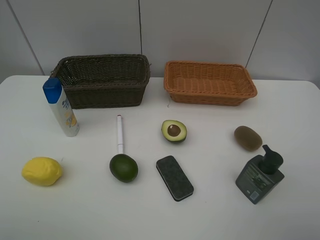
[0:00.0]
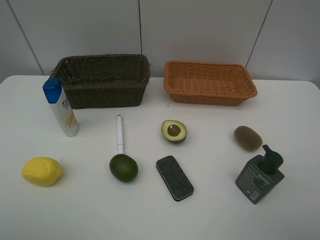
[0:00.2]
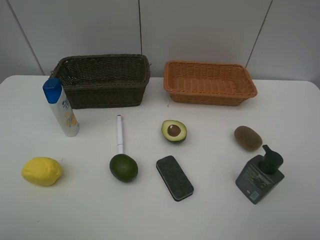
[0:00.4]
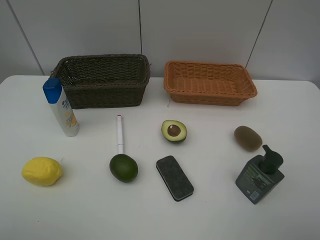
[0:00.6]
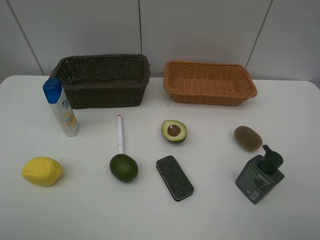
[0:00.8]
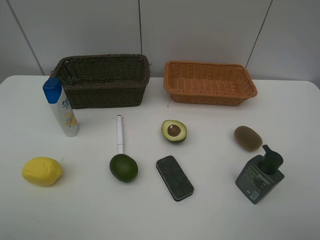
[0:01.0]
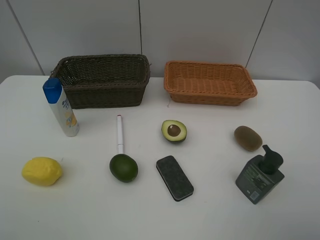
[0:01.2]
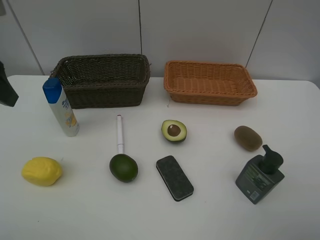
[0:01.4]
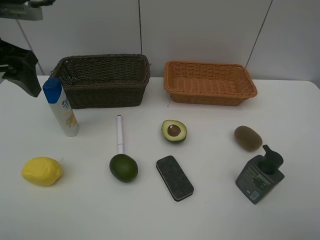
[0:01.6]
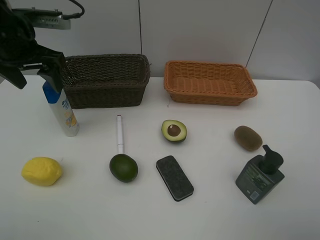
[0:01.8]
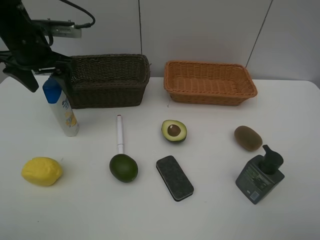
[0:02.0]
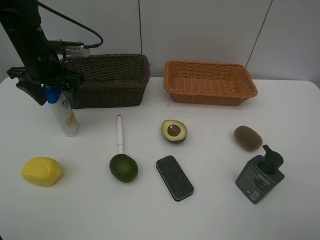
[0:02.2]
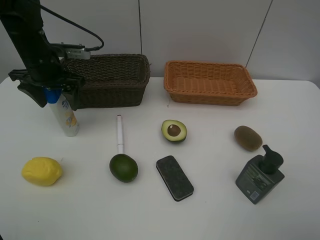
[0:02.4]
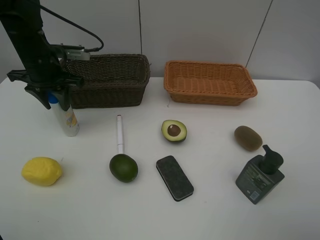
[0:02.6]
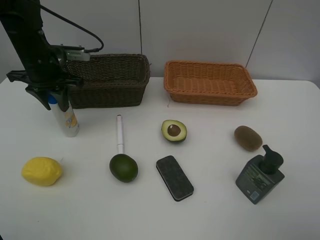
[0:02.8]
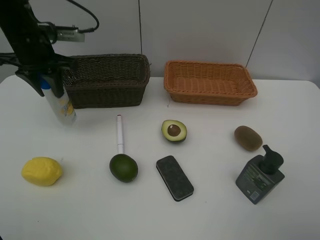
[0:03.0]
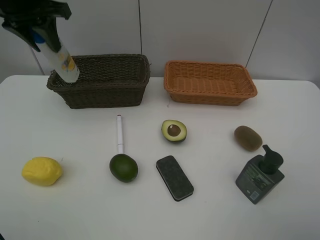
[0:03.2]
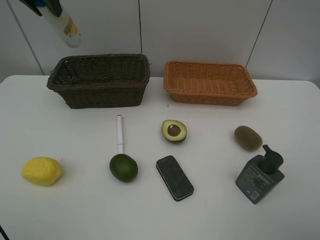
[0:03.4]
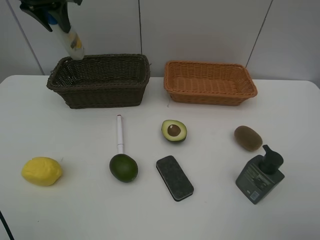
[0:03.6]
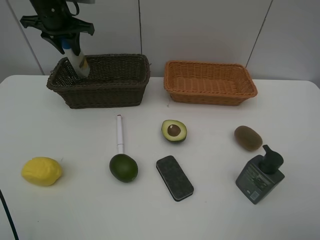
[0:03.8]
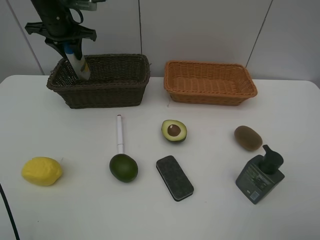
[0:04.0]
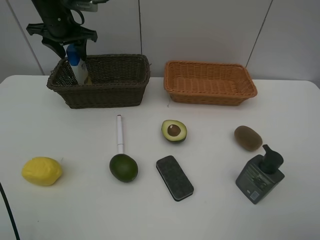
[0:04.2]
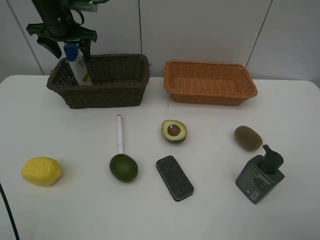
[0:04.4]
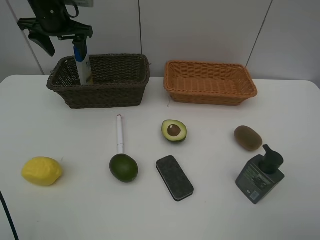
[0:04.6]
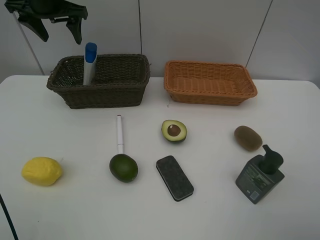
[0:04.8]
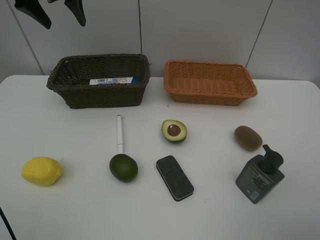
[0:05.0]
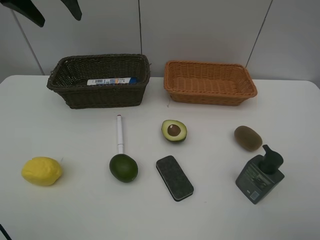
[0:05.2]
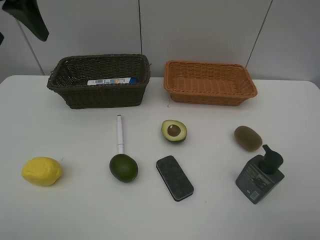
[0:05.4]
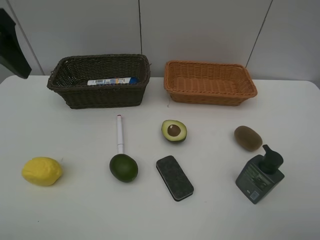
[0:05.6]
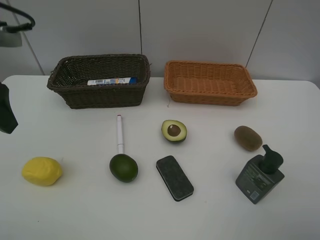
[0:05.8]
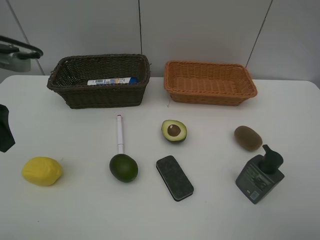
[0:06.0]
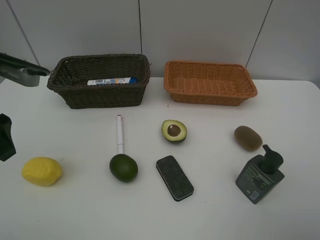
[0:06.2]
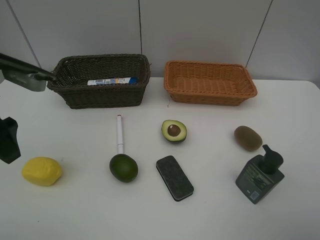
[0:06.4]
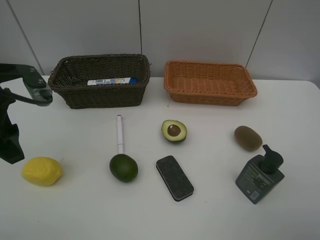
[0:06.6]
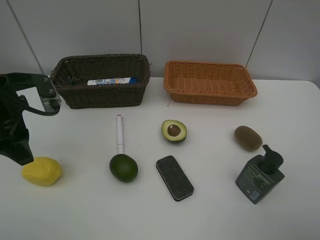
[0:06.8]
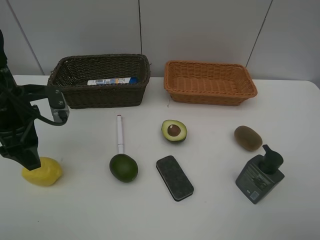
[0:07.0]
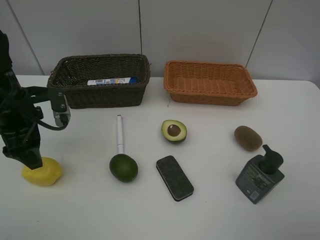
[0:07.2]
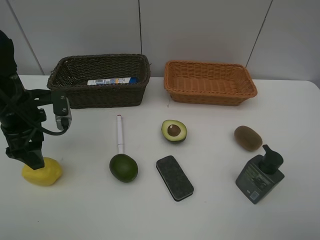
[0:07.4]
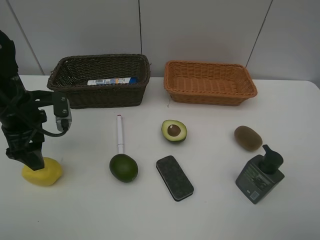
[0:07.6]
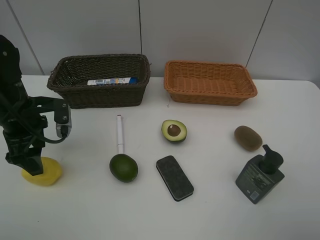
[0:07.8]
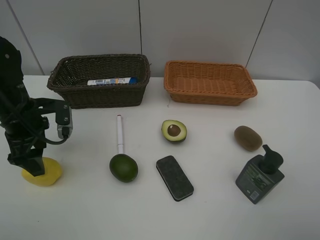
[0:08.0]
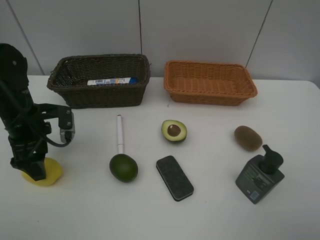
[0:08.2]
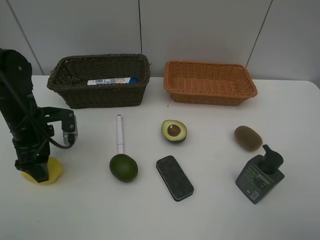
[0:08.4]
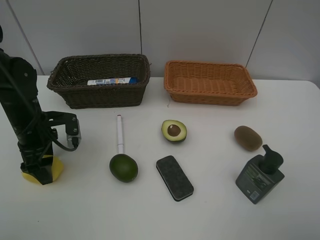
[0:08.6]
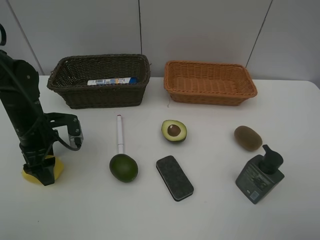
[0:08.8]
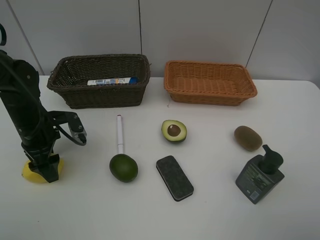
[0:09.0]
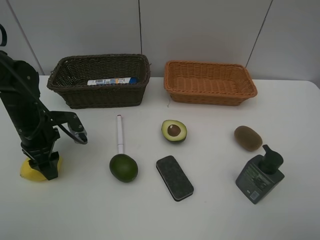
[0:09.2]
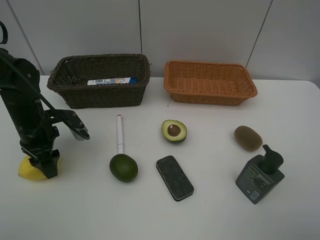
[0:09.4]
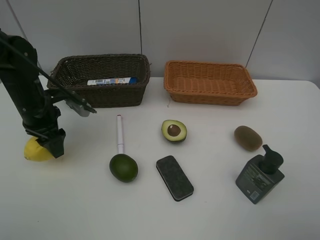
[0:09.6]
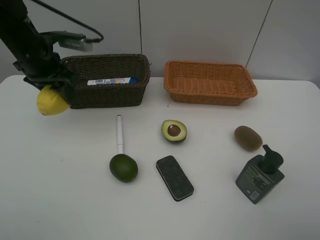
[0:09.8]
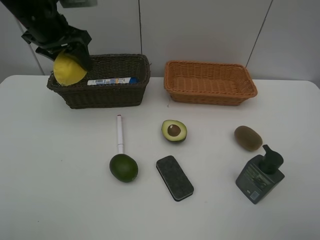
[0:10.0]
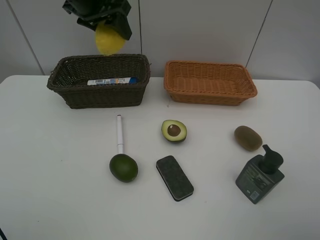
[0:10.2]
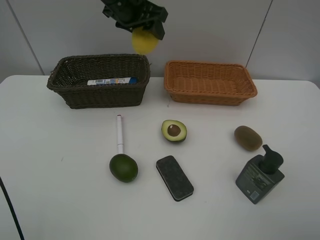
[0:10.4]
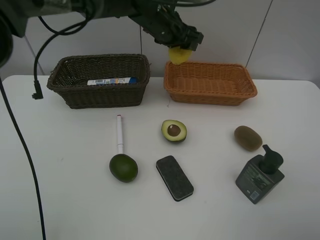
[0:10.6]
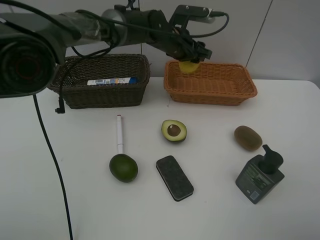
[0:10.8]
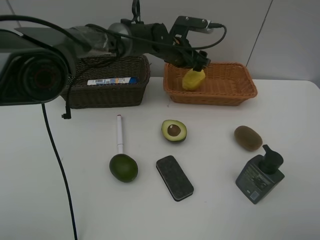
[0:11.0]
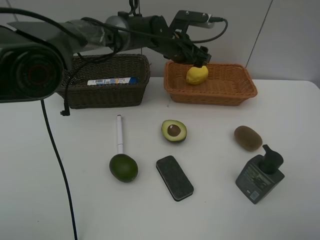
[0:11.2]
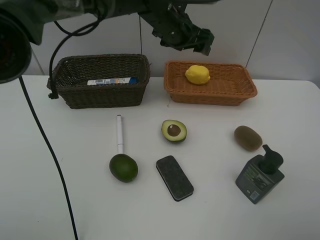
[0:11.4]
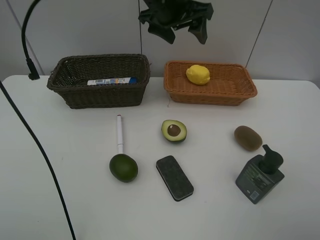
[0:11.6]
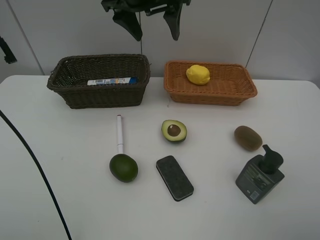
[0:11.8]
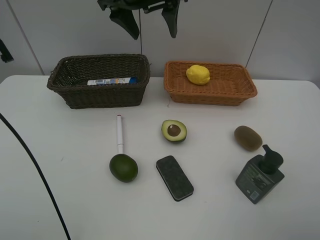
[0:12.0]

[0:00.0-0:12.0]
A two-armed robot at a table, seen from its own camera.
Task of the whole recording: Place multiple objects separately in different baskets.
Step, 0:00.0 to 0:02.8: Pick up the shampoo with left gripper.
Step, 0:03.0 to 0:04.6: Place the shampoo in the dark basket with left gripper.
Step, 0:04.8 to 0:09.6: Pick up the lemon with left gripper.
Step, 0:09.8 to 0:11.0: Place the lemon in the light basket with left gripper.
0:00.0 to 0:01.6: The left gripper moves forward, roughly 30 cm.
0:01.6 to 0:03.0: The left gripper travels forward by approximately 10 cm, goes downward and returns, about 10 cm each way, and closes its fingers.
0:03.0 to 0:04.4: The left gripper travels forward by approximately 10 cm, moves about 10 cm upward and comes back, and opens.
0:04.4 to 0:06.0: The left gripper is displaced backward by roughly 25 cm.
0:06.0 to 0:07.6: The left gripper heads downward and forward, covering some 15 cm.
0:07.6 to 0:09.0: The left gripper heads downward, covering some 5 cm.
0:09.0 to 0:10.4: The left gripper is displaced upward, to the right and forward by some 30 cm.
0:10.4 to 0:12.0: The left gripper travels backward by about 5 cm, and moves some 10 cm downward and comes back.

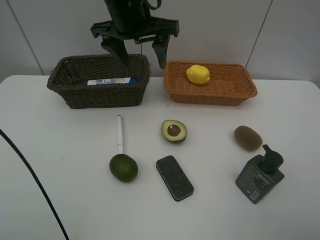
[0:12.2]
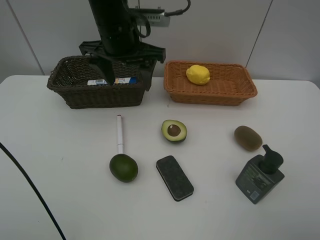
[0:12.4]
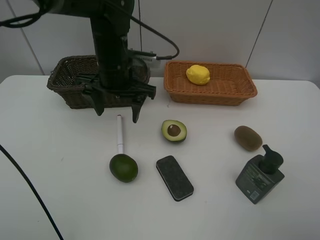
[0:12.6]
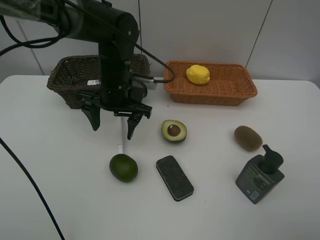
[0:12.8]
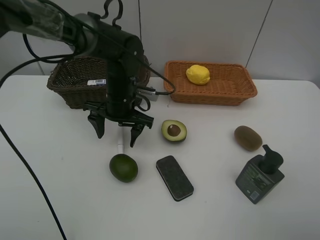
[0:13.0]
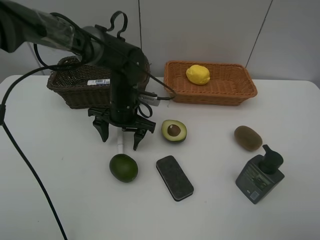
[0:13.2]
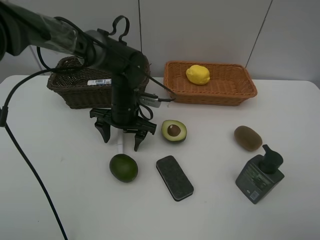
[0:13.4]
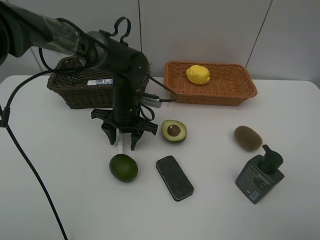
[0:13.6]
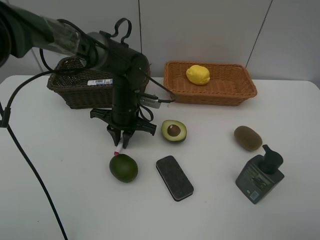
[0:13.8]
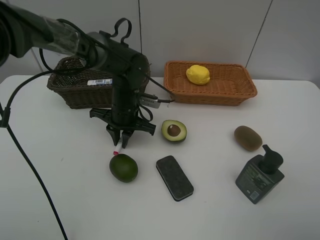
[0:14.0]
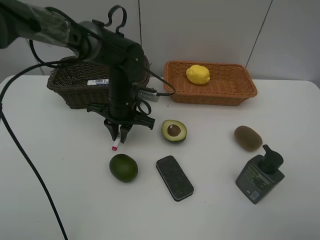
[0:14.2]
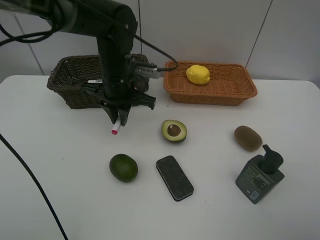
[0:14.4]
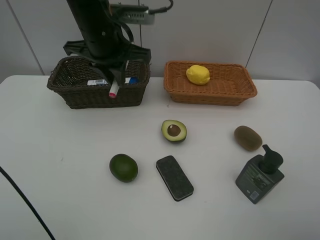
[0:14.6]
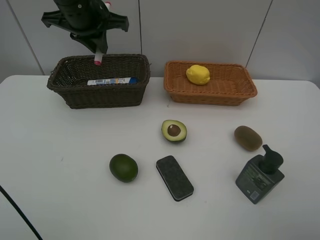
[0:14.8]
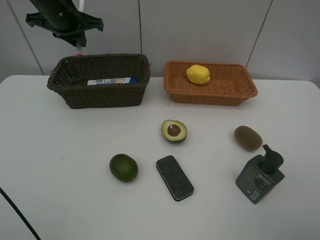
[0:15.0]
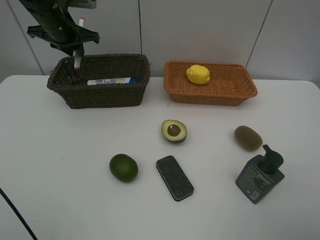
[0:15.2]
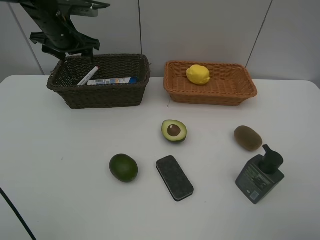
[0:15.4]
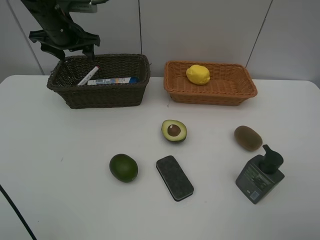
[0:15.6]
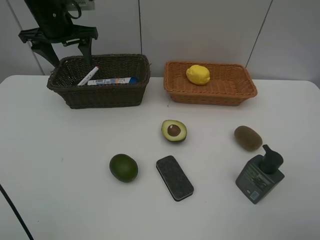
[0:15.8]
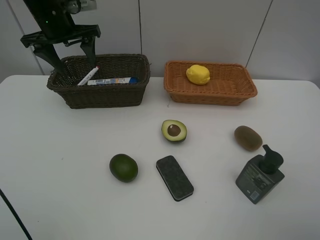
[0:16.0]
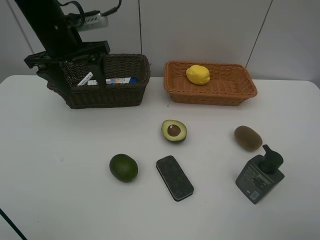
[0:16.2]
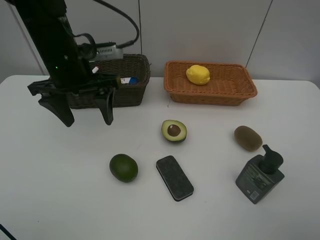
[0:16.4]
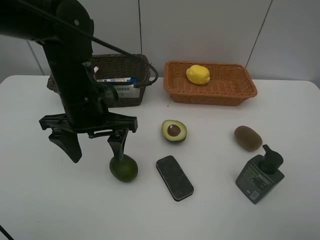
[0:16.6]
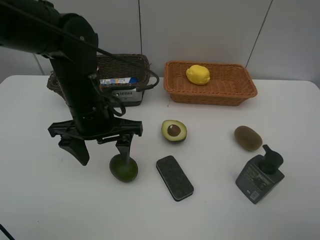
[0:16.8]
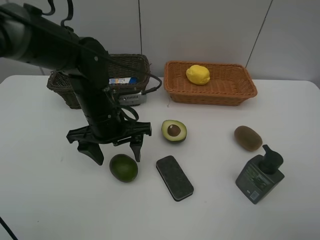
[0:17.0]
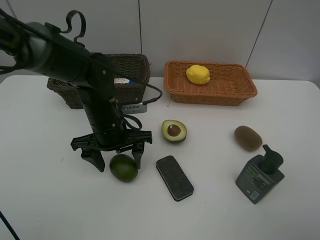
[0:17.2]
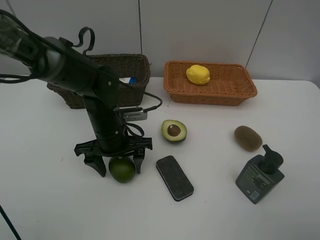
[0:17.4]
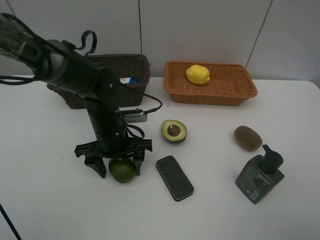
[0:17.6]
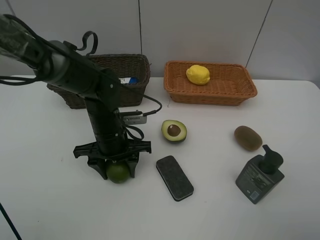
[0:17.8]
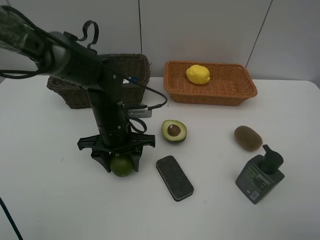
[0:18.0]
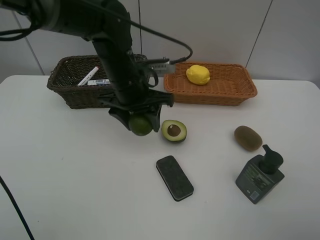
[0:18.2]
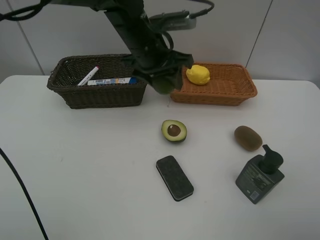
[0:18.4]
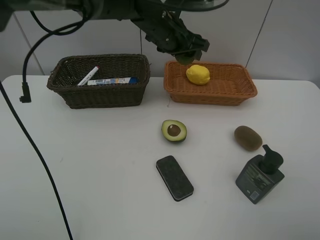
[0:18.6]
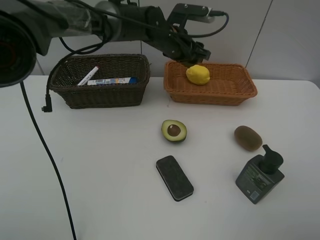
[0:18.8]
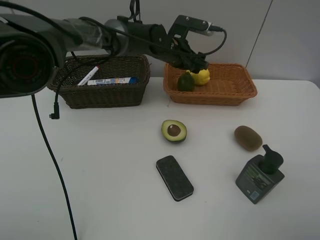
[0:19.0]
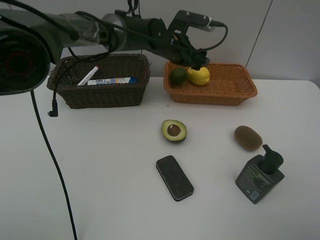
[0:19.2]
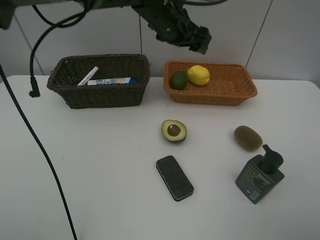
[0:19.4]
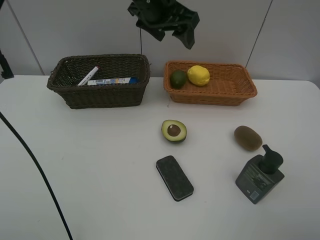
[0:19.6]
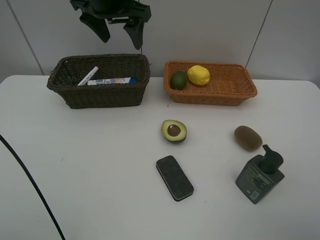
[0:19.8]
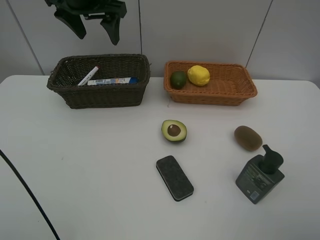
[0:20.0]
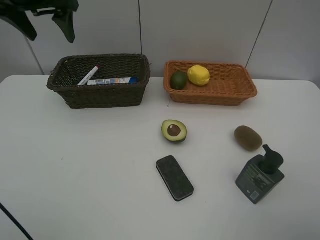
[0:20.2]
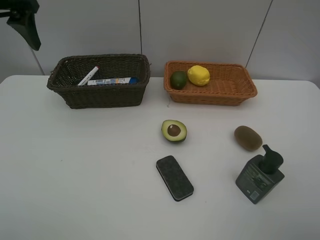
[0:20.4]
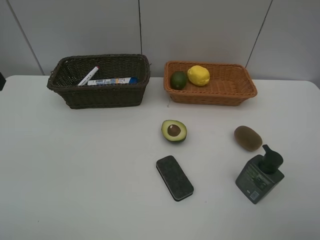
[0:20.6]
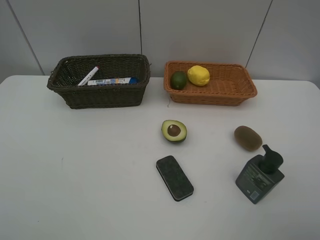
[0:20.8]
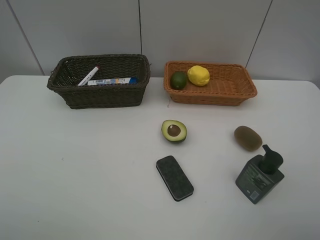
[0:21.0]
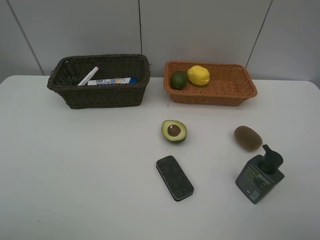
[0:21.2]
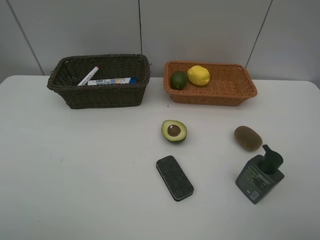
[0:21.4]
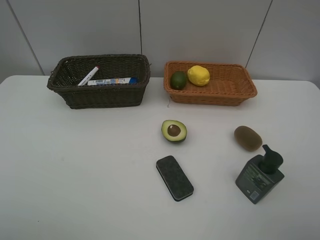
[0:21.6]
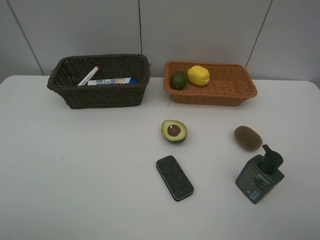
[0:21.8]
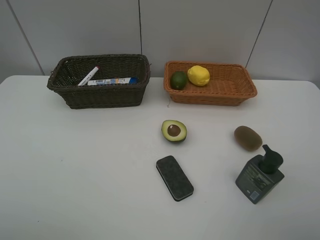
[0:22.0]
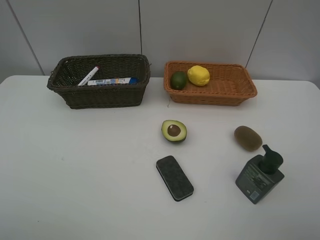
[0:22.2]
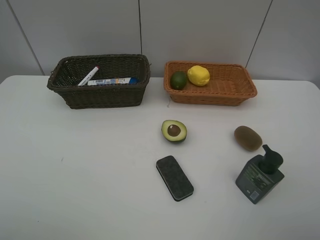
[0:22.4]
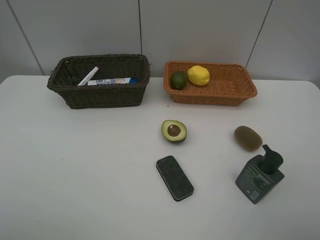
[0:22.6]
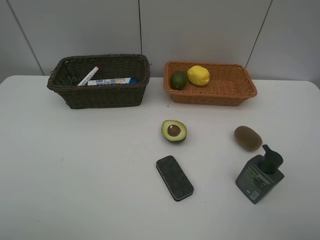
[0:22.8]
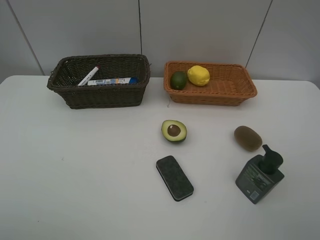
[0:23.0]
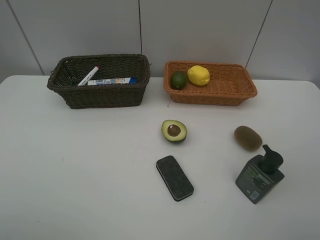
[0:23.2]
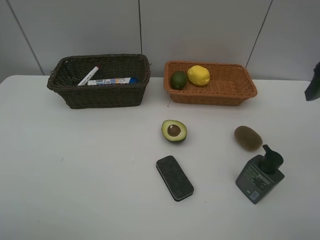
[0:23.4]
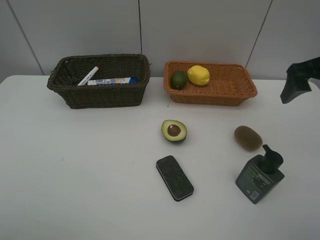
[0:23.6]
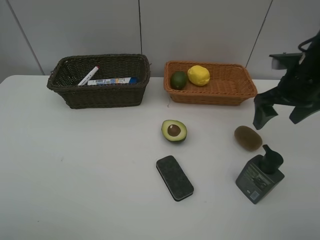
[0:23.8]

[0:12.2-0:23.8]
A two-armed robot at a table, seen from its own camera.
Task of the whole recording: Place multiple objects separately in different baskets.
Step, 0:12.2 to 0:14.2: Pick up the red marker with left gripper.
Step, 0:14.4 to 0:15.4: Place the red marker in the dark basket with left gripper.
Step, 0:15.6 to 0:18.0: Pick up the lemon with left gripper.
Step, 0:18.2 to 0:19.2: Place the lemon in the light basket with left gripper.
0:12.2 to 0:13.6: The left gripper heads downward, covering about 20 cm, and closes up.
0:13.6 to 0:15.0: The left gripper shifts approximately 25 cm upward, to the left and forward, and closes its fingers.
0:15.0 to 0:16.6: The left gripper goes roughly 20 cm backward and to the right, and opens its fingers.
0:16.6 to 0:18.0: The left gripper shifts some 10 cm downward.
0:18.0 to 0:19.4: The left gripper shifts about 25 cm upward, forward and to the right.
0:19.4 to 0:21.0: The left gripper travels backward and to the left by some 50 cm.
0:22.4 to 0:23.8: The right gripper moves forward, some 30 cm.
